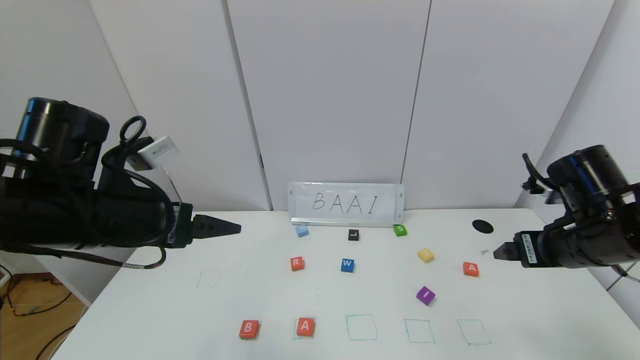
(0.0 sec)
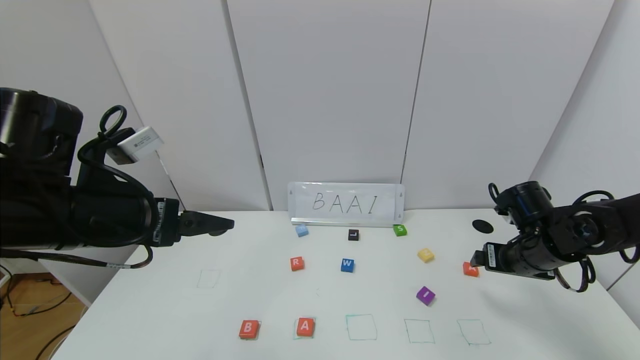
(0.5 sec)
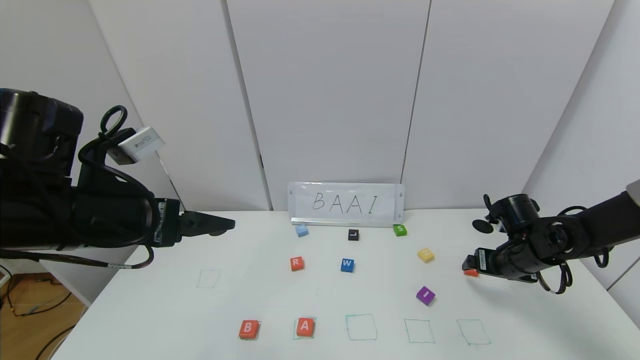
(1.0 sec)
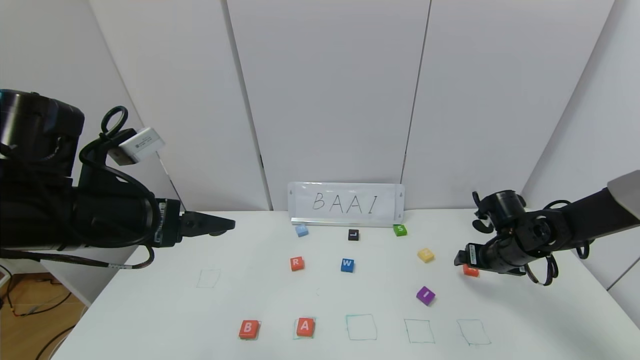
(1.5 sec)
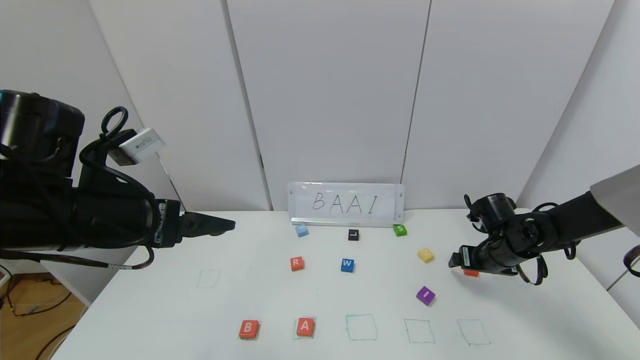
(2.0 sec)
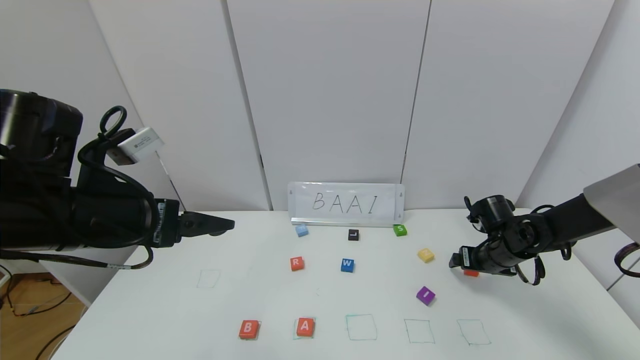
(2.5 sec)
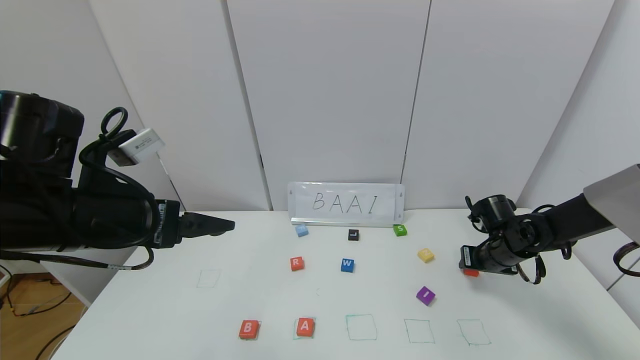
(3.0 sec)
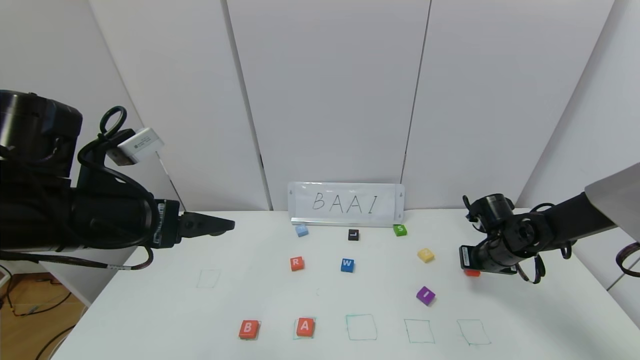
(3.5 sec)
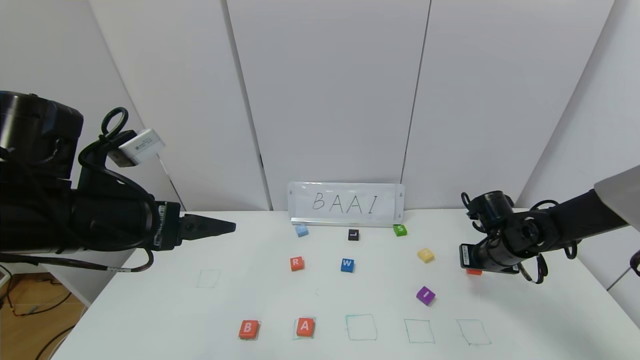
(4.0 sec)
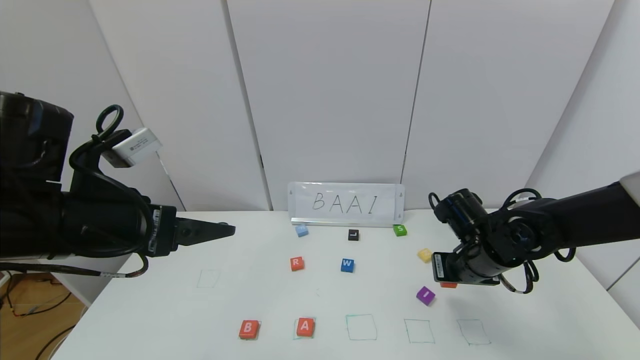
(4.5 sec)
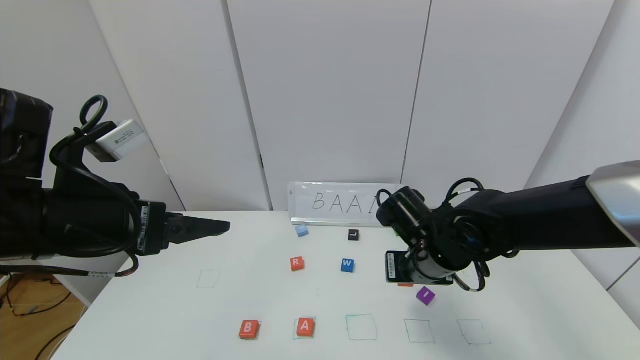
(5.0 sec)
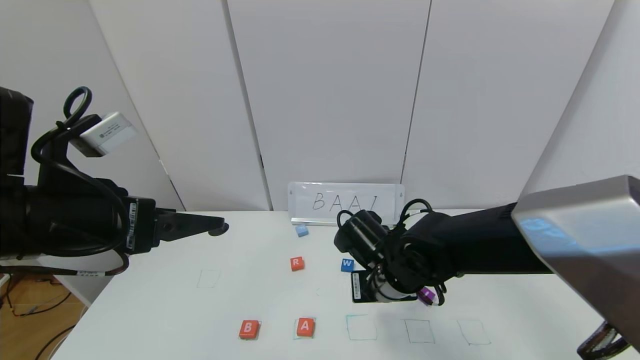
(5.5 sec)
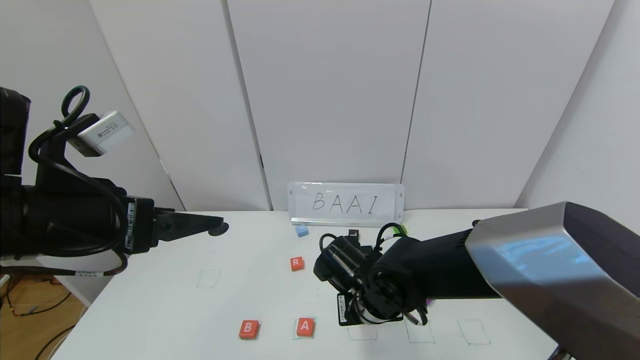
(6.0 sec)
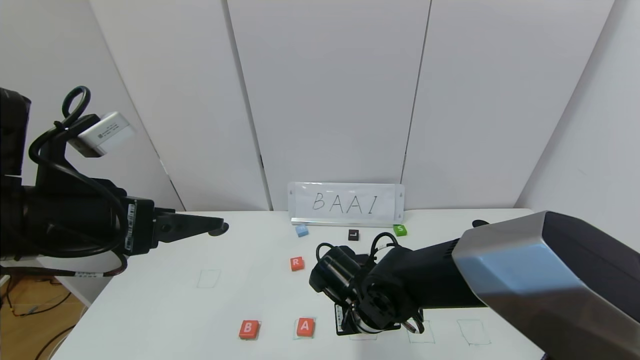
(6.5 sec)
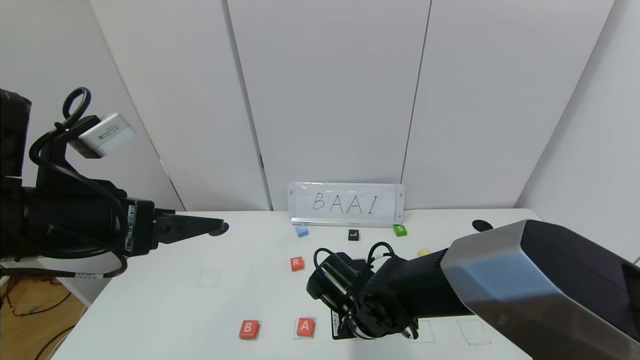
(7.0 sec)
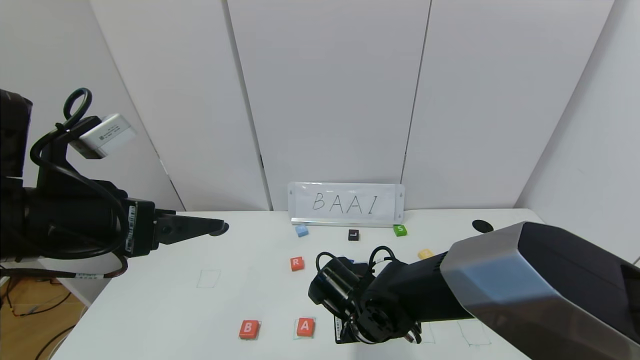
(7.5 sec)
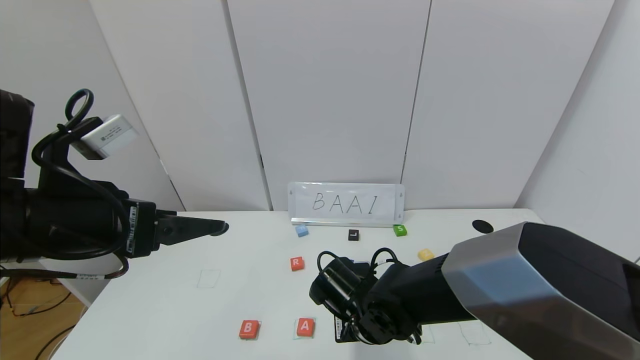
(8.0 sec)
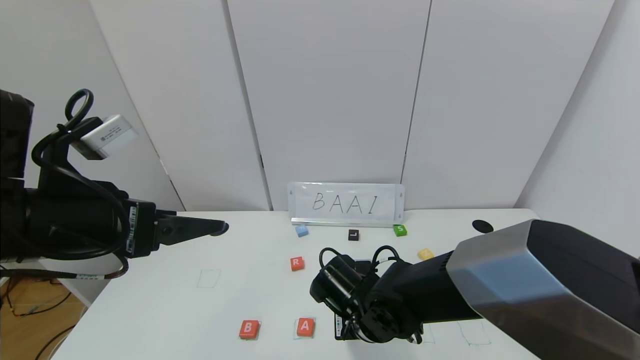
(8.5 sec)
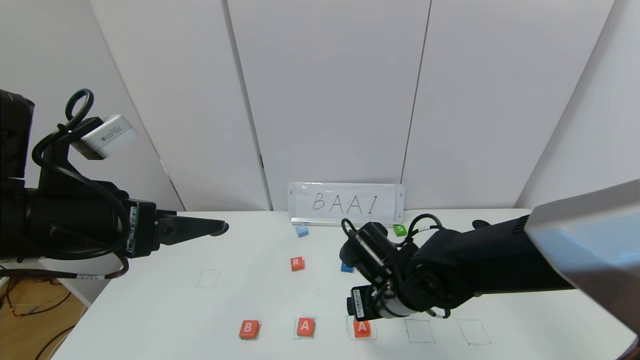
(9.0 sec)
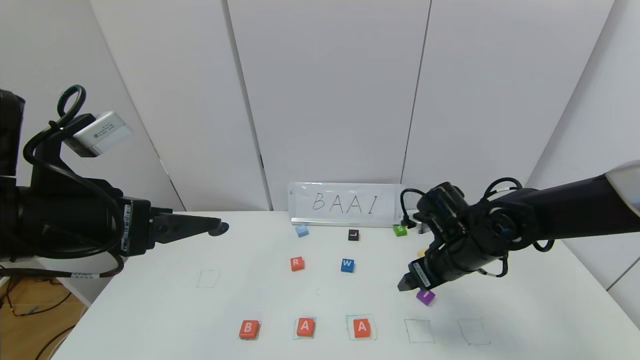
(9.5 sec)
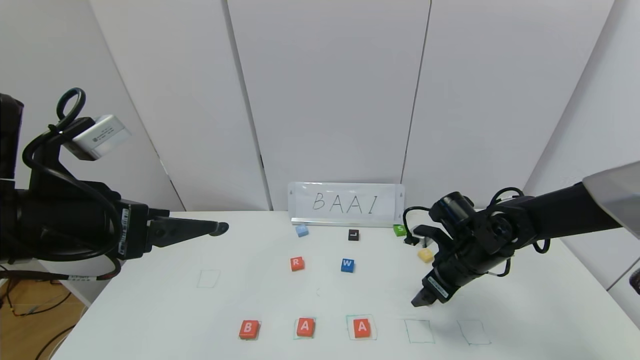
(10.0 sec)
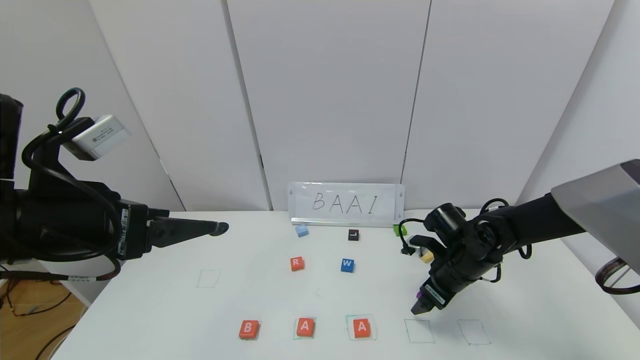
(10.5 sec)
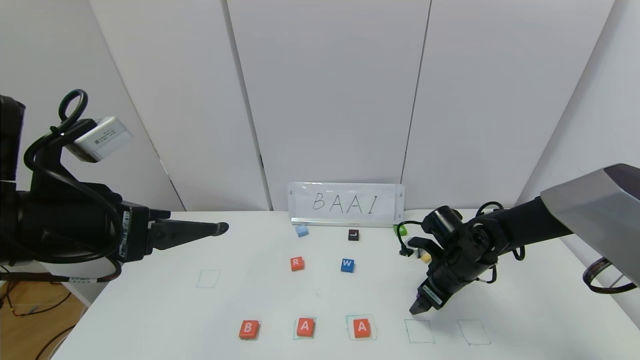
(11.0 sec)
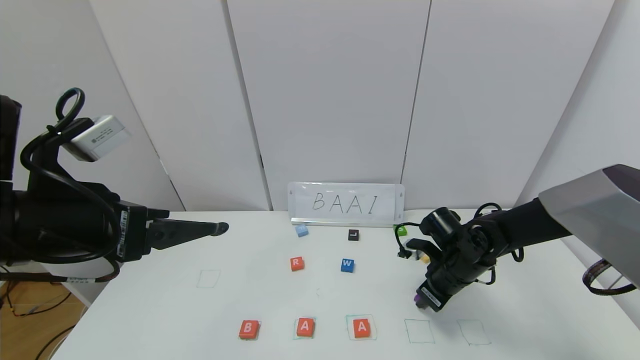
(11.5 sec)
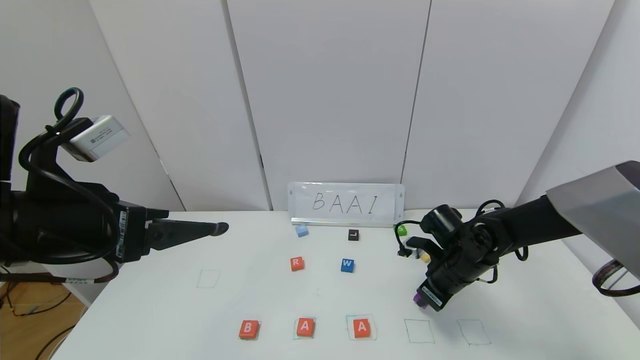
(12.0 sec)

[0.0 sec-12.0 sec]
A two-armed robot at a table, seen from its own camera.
Task of the whole recording: use the gripper to find blocks with the letters b, a, a, and i on the table and arrange them into BAAI, then find r and N and turn the arranged baai into brian.
Step, 0.0 sec to 8.5 sec: Place the second block A in the third location.
0.0 sec to 2.0 sec: The right gripper heads downward and forward, covering roughly 20 cm.
2.0 sec to 4.0 sec: The right gripper closes its fingers.
4.0 sec to 6.0 sec: The right gripper goes approximately 25 cm to the left.
6.0 sec to 8.0 sec: The grippers stay close to where they were, moving slightly.
8.0 sec to 10.0 sec: The right gripper moves to the right and forward, about 20 cm, and opens.
10.0 sec to 12.0 sec: The right gripper closes its fingers.

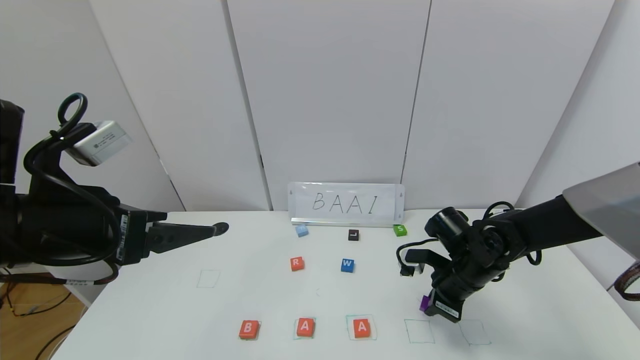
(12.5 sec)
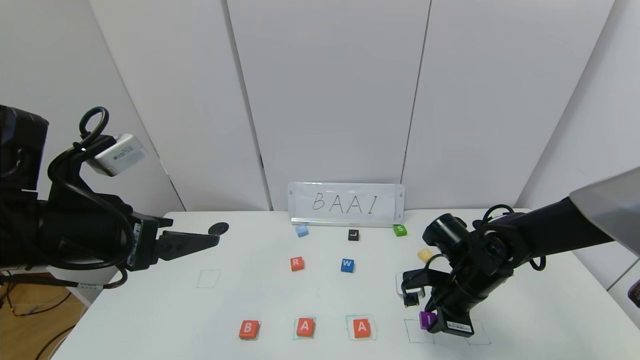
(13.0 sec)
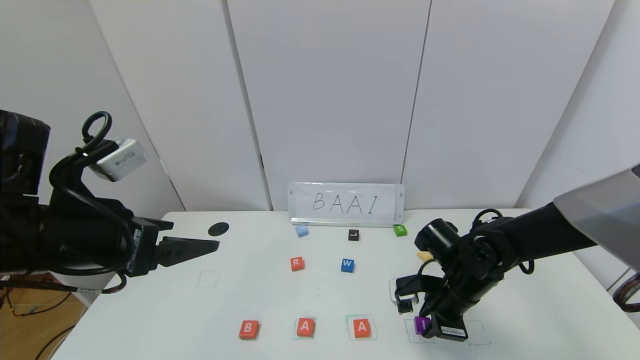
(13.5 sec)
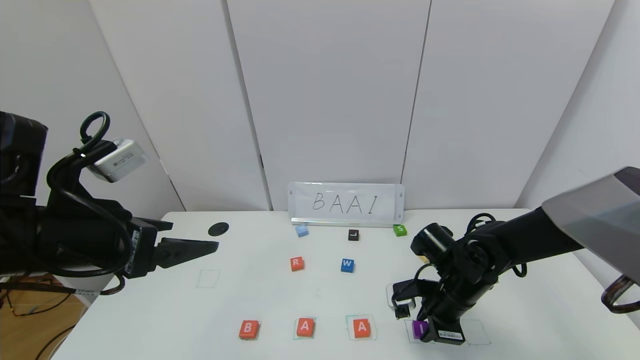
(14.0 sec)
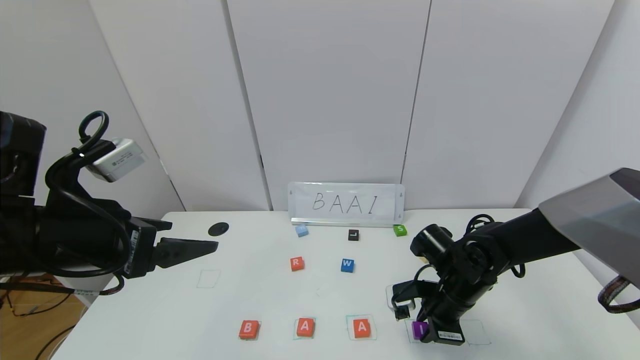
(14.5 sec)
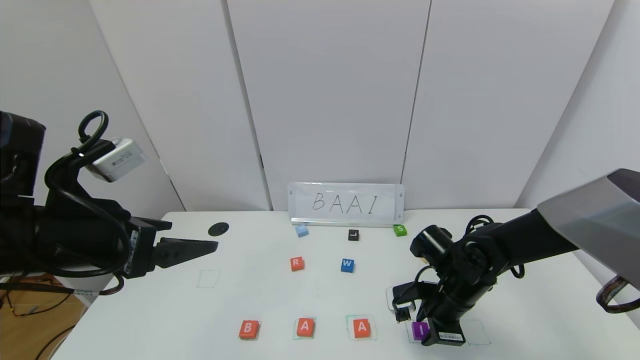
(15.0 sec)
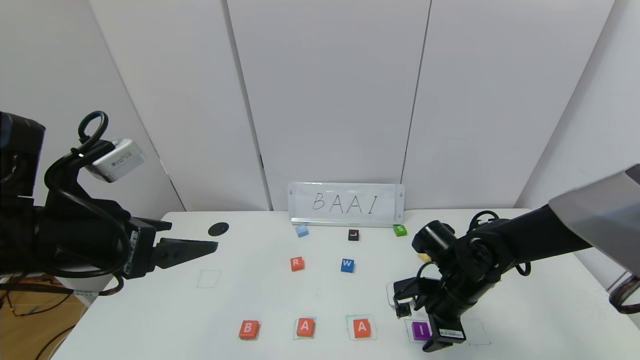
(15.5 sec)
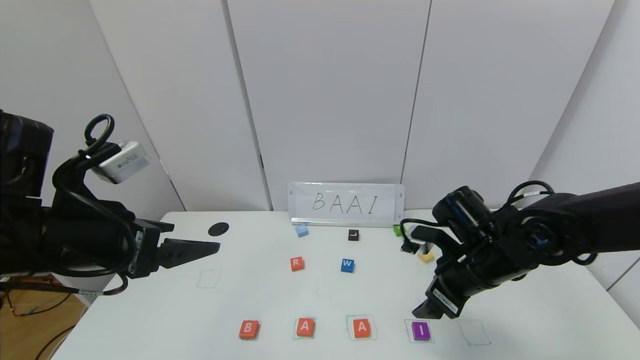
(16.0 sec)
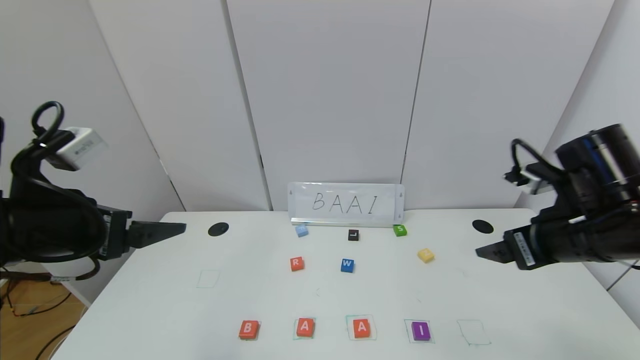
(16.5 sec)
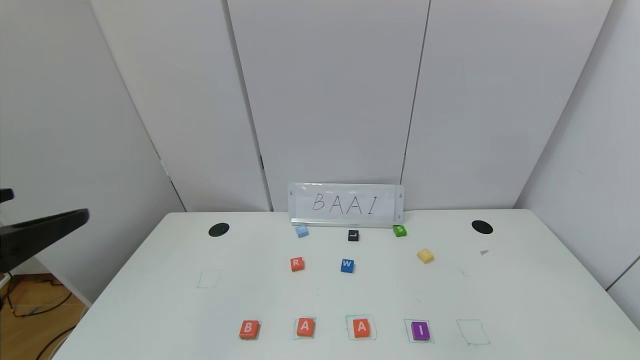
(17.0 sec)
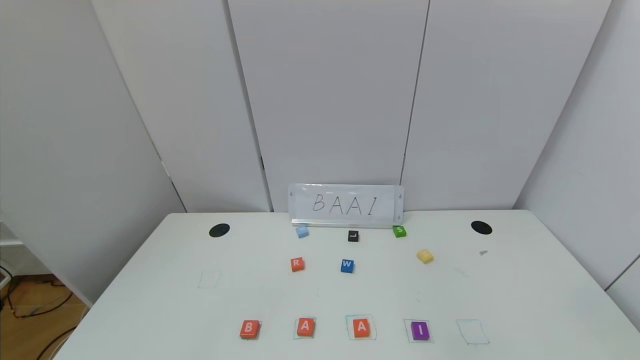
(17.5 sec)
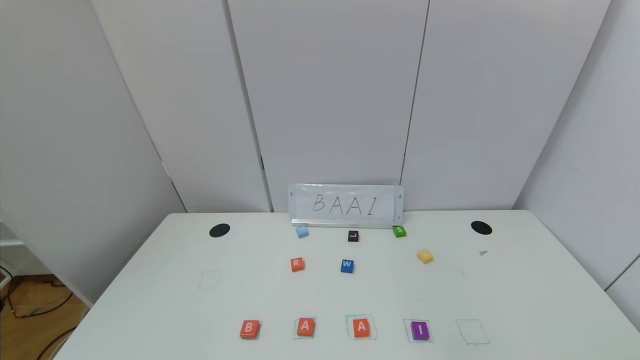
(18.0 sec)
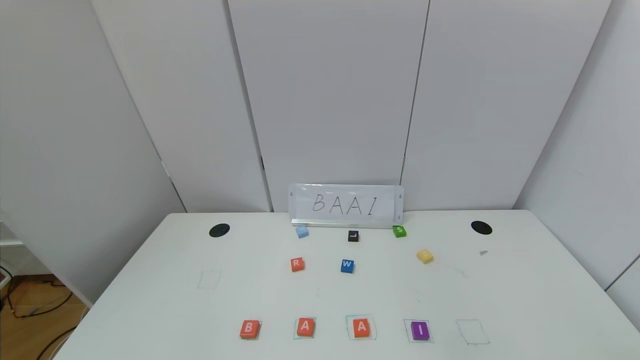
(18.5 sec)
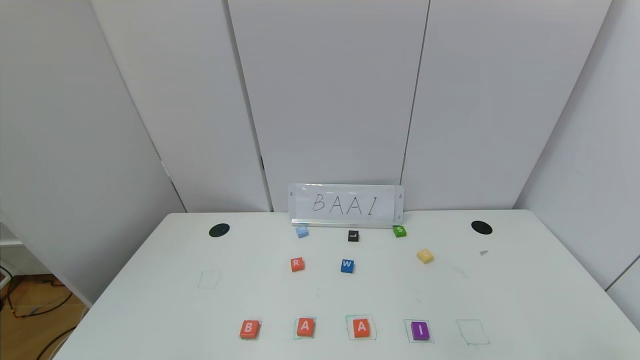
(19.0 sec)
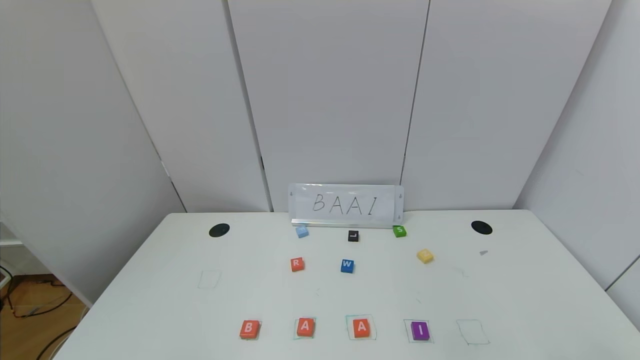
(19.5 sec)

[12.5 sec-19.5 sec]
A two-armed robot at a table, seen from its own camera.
Task of the whole recording: use the gripper to find blocks with the letters b, a, a, and i on the table and arrange them into BAAI, then find r and N and turn the arranged baai into brian.
Step, 12.5 sec to 15.0 sec: Place the block I in the fourth location.
14.5 sec to 16.0 sec: The right gripper travels upward by about 10 cm, and opens up.
16.0 sec to 17.5 sec: The right gripper shifts approximately 40 cm backward, to the right and upward; the left gripper heads backward, covering approximately 25 cm.
